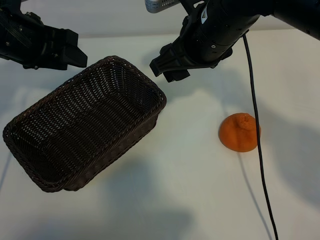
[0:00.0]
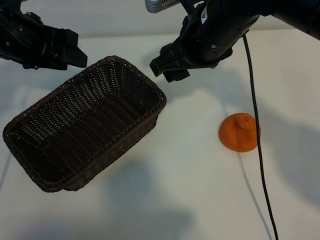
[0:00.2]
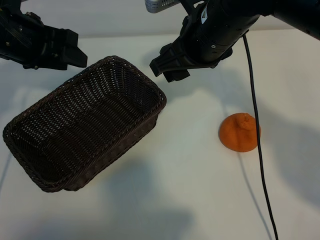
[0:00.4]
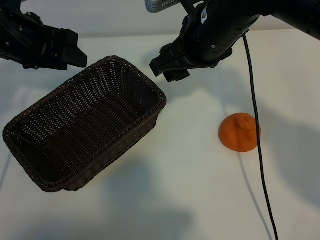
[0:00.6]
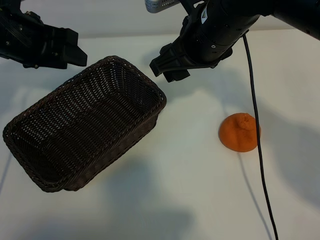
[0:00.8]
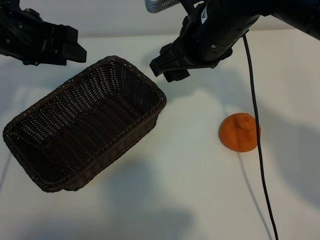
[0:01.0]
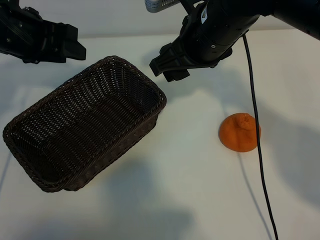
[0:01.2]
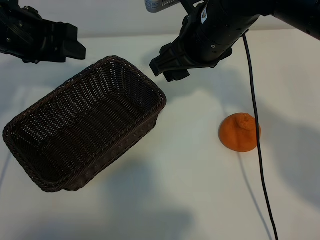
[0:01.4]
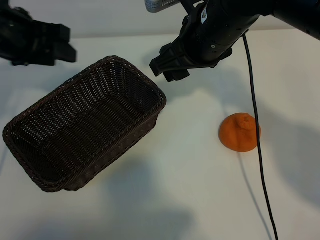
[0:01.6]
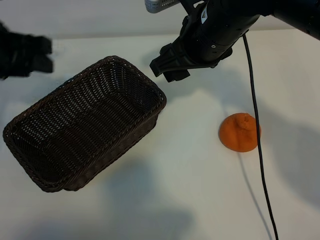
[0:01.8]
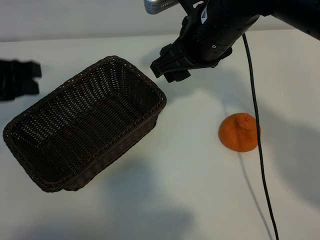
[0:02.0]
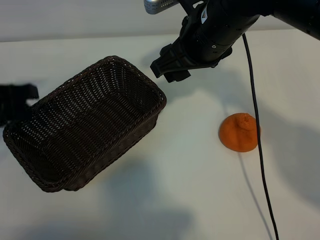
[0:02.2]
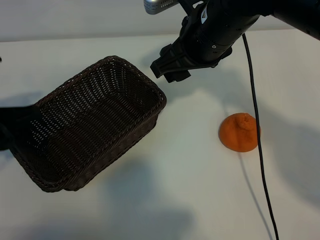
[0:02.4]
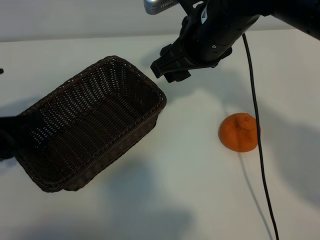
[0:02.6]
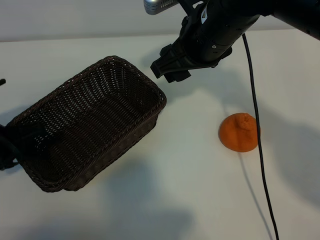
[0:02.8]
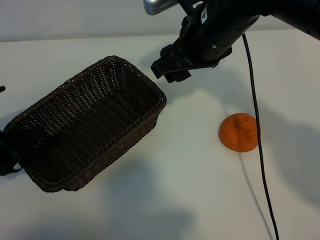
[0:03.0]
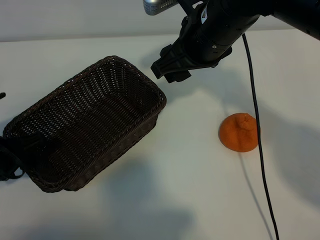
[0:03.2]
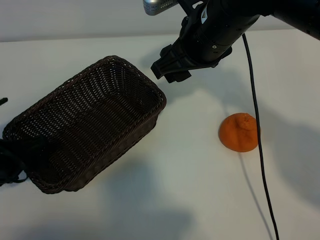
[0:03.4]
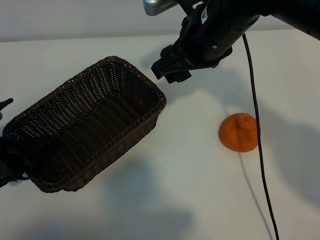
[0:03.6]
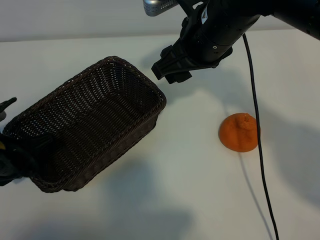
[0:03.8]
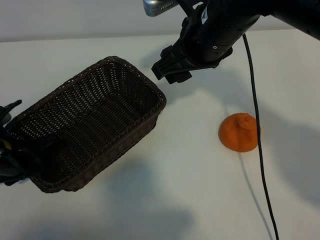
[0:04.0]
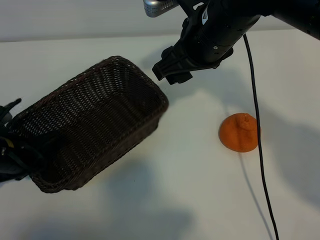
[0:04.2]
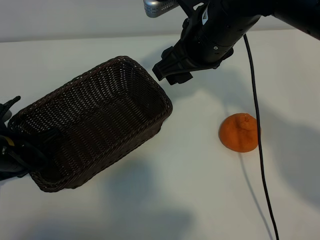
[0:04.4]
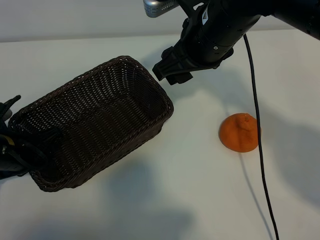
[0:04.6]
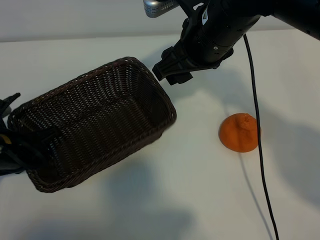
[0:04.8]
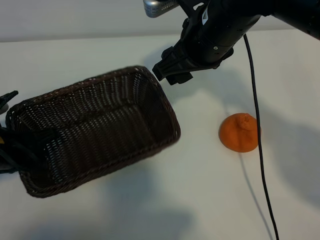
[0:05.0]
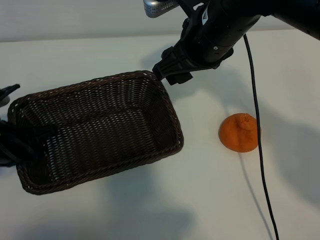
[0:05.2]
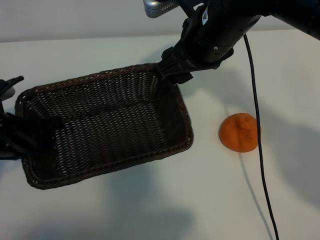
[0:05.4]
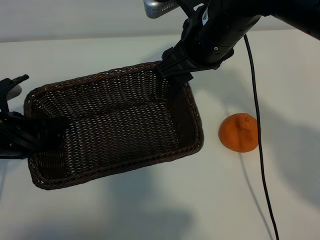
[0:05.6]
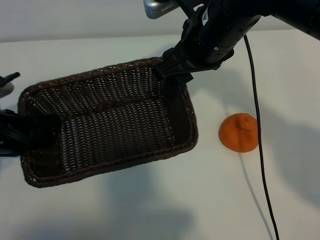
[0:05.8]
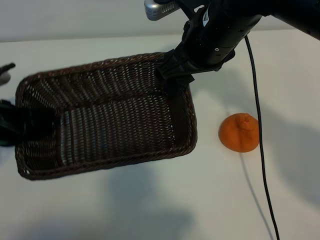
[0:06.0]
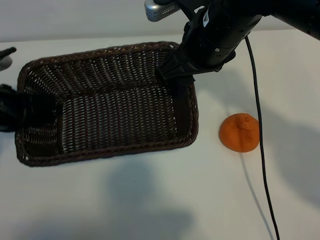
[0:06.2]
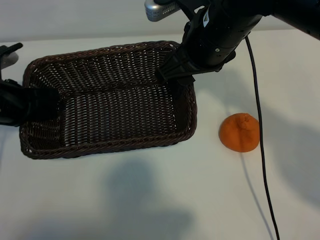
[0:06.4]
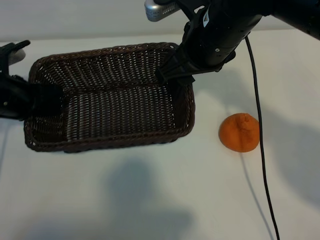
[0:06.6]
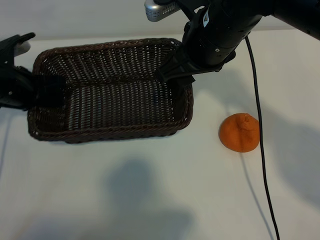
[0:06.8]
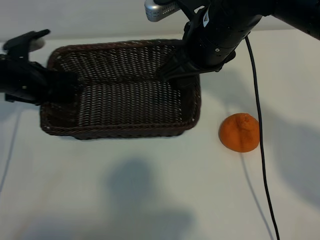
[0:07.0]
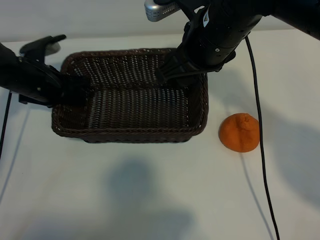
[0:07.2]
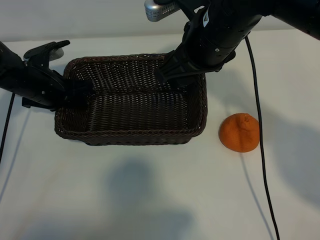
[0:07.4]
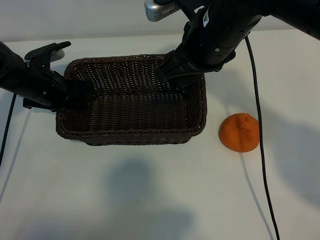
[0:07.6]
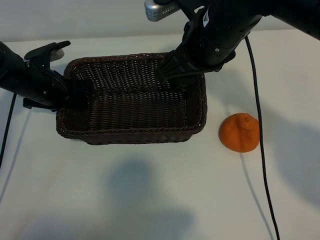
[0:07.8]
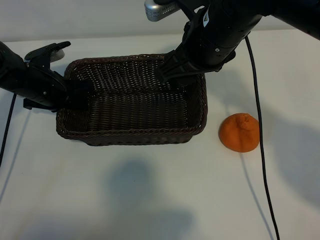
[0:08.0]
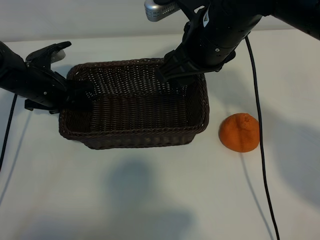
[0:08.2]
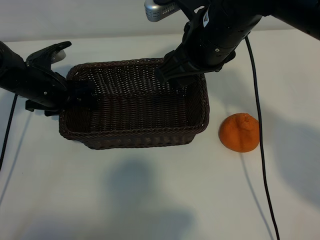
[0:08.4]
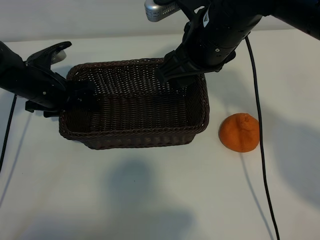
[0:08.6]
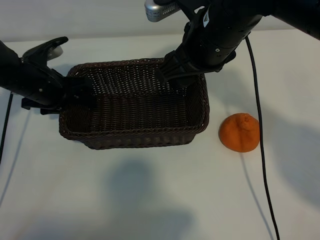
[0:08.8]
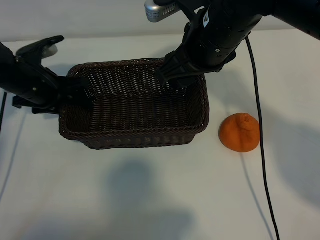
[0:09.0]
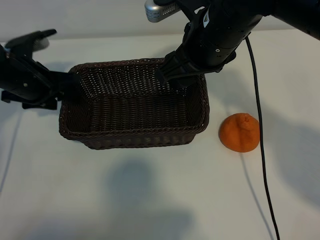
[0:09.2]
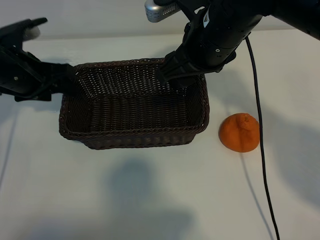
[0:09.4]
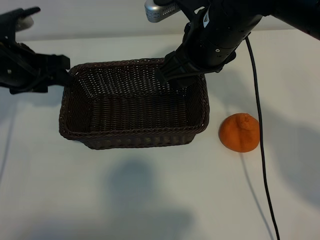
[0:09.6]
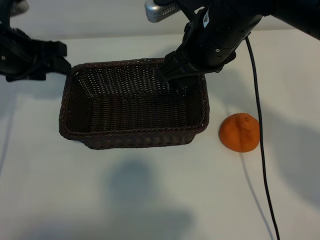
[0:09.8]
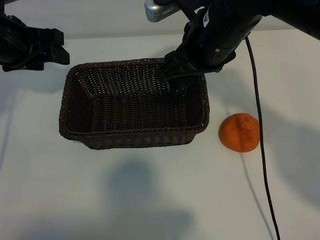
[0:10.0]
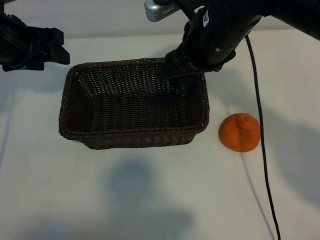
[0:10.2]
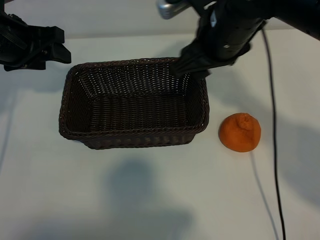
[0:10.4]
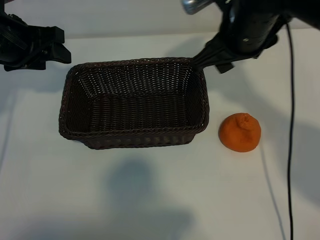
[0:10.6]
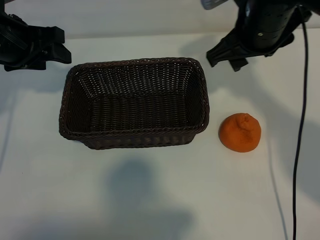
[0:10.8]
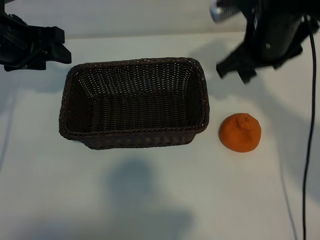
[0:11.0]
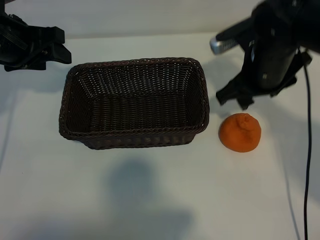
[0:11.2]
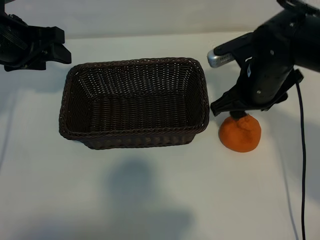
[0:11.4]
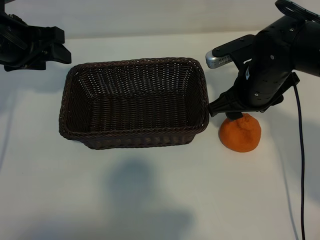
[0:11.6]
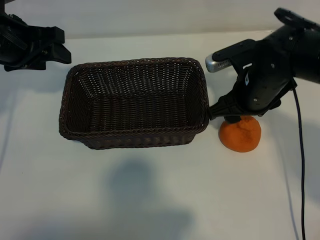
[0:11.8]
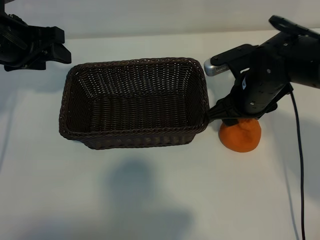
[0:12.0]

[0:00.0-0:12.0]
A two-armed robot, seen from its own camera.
Task of the whole recording: pick up the orange and put it into the basket.
Step, 0:00.8 to 0:04.2: Grasp the basket with left gripper.
Step, 0:04.4 to 0:08.0: Place the basket in the center of view with left gripper.

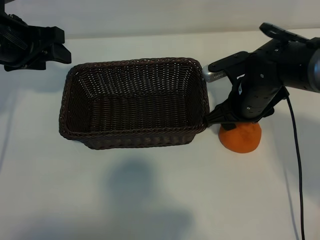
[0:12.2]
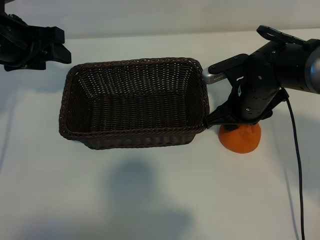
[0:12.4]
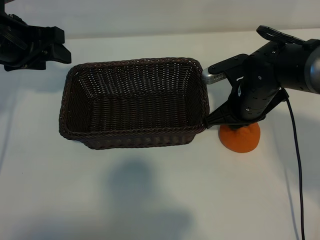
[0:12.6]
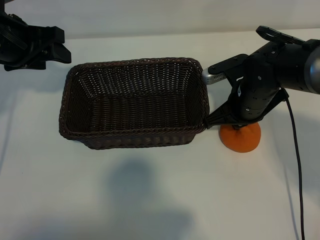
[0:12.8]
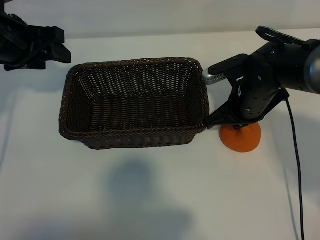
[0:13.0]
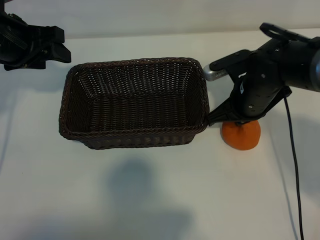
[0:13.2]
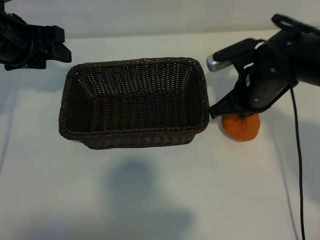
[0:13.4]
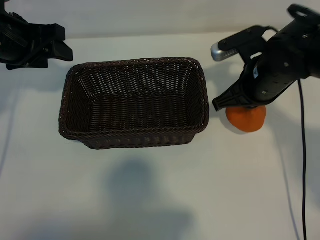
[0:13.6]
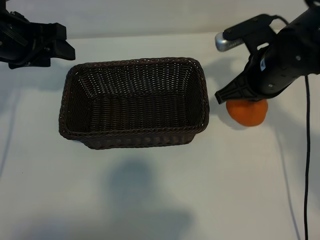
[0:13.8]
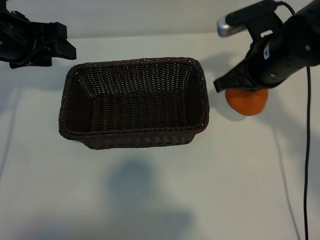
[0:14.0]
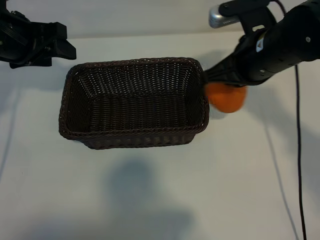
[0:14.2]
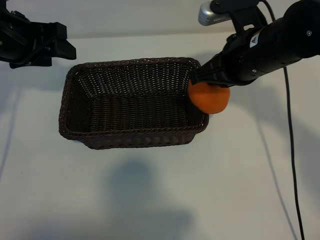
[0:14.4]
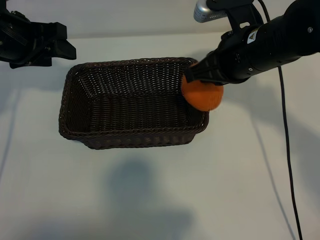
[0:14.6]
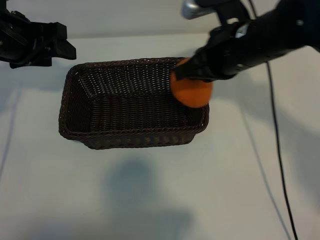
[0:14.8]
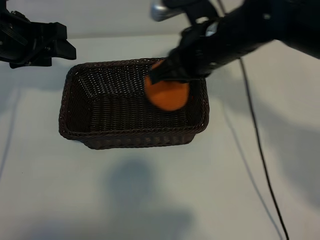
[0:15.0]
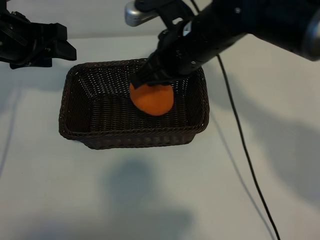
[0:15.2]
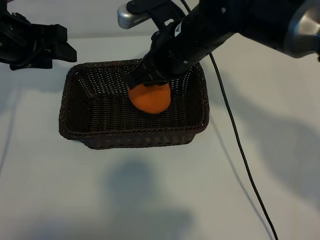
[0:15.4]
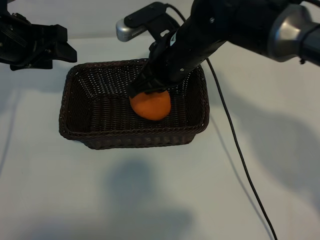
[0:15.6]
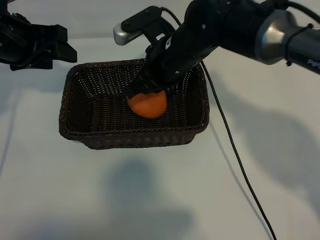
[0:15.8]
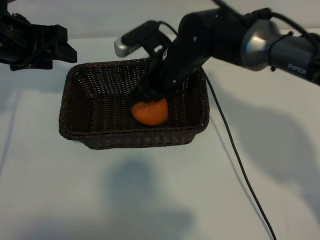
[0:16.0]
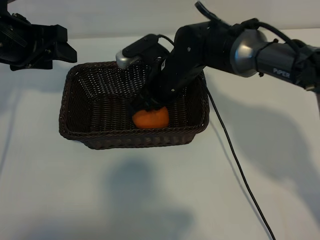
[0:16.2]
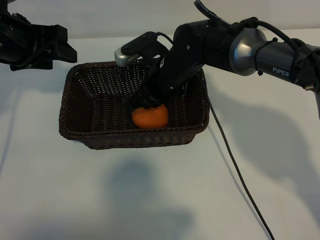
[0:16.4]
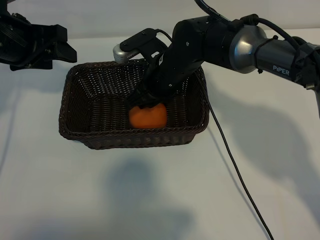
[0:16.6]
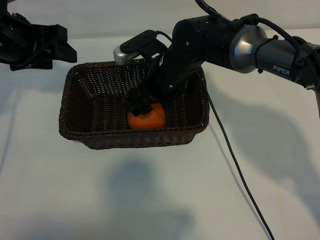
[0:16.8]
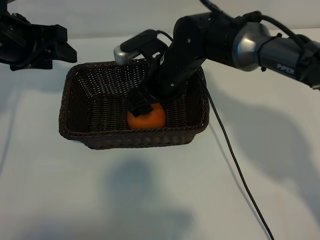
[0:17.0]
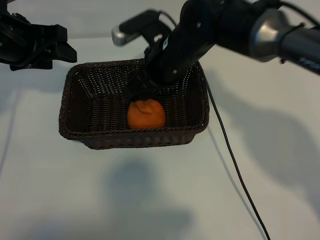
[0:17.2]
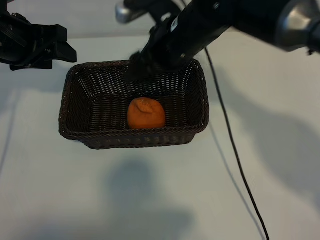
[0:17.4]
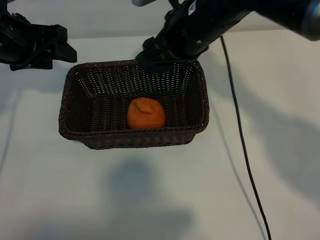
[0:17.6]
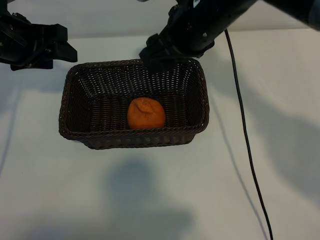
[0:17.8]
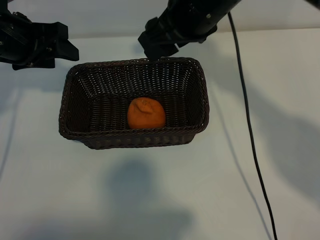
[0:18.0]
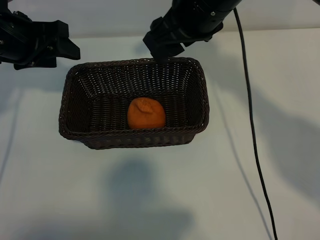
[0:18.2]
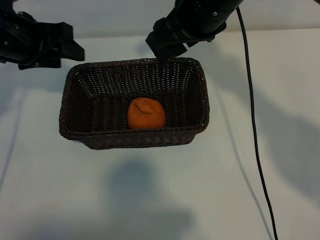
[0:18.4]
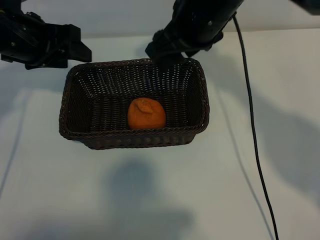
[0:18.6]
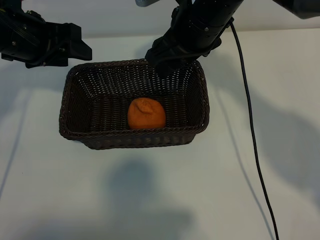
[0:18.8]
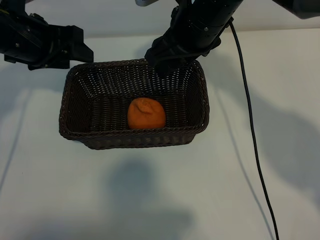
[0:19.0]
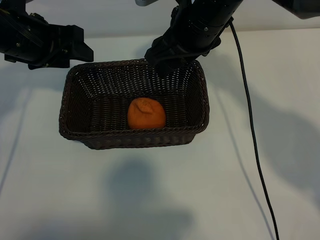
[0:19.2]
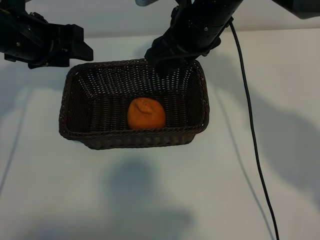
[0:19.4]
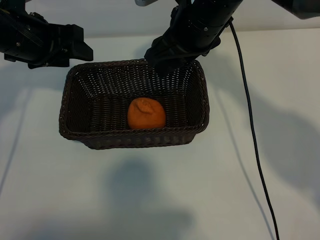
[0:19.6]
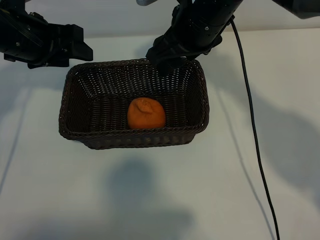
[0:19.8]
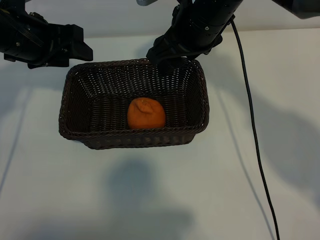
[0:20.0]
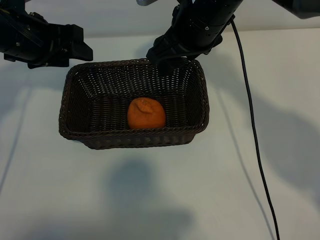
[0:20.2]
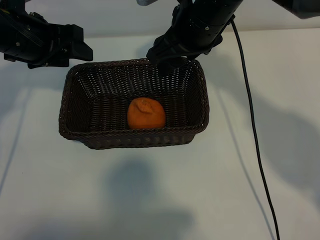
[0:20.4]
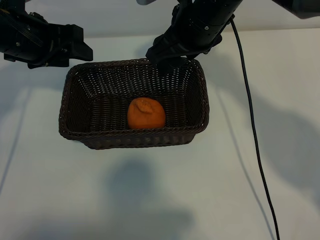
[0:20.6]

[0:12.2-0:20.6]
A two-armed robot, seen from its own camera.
Task of the whole recording: pick up the orange and put it into the basket.
Step, 0:13.2 to 0:16.8: Place the orange in the basket with right gripper.

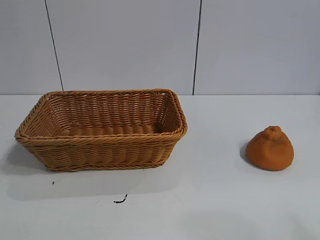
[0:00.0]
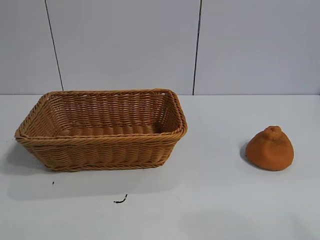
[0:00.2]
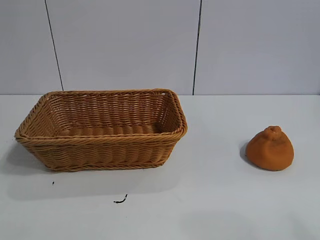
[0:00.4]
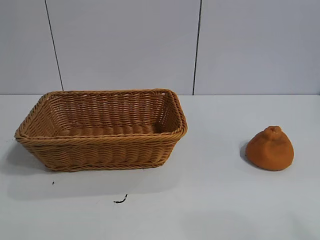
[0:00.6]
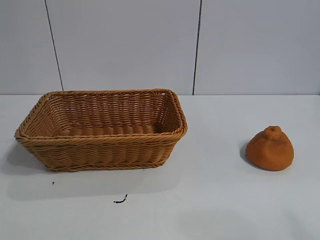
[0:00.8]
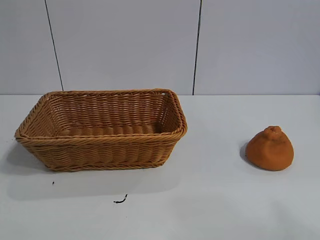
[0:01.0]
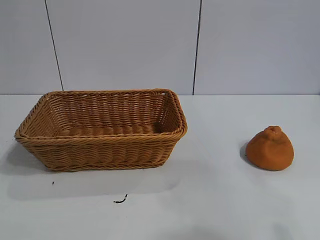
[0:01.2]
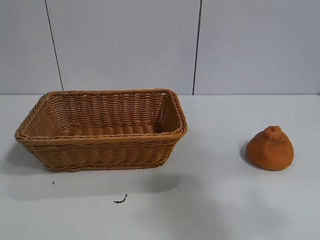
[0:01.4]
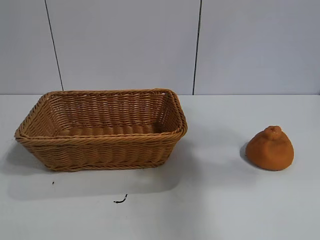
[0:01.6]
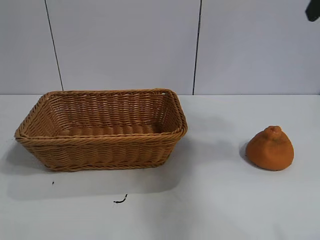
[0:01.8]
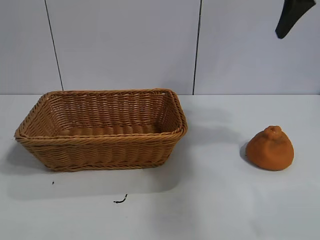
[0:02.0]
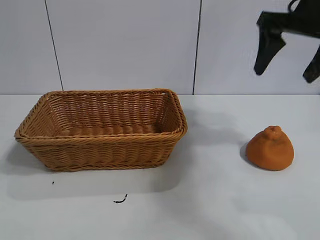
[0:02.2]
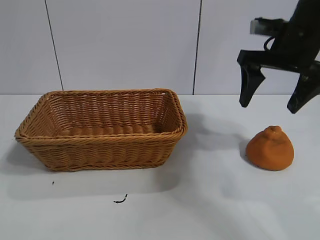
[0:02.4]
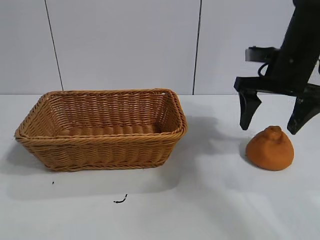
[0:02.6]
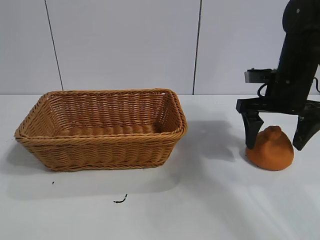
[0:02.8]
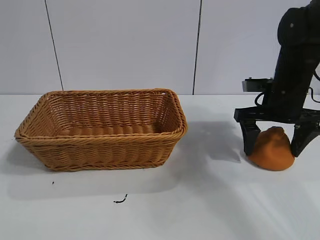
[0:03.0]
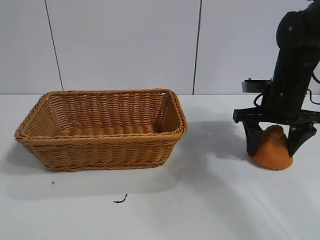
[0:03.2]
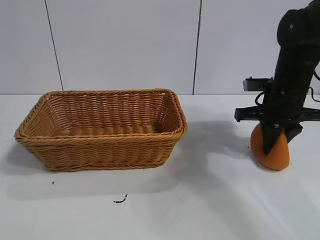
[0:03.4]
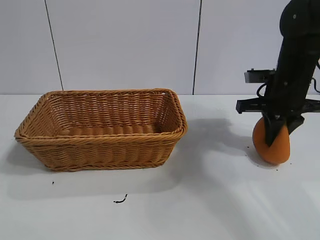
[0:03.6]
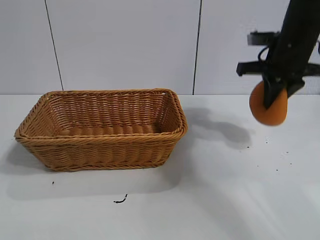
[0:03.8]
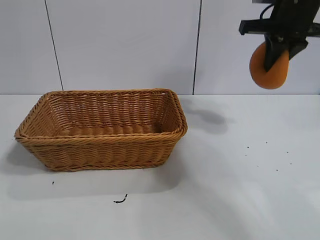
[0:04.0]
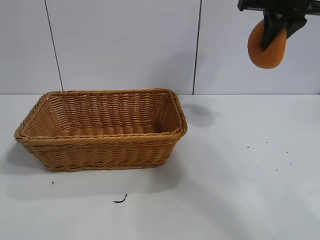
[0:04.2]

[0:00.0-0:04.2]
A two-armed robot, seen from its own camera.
Task of the whole recording: pick up the orange and put it into the basket.
Step, 0:00.8 to 0:03.2: Grasp the orange with right gripper.
